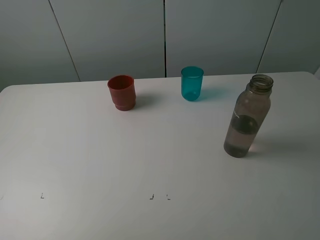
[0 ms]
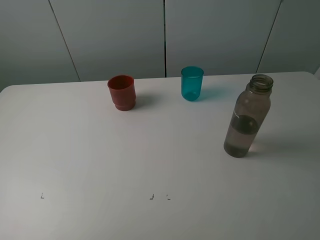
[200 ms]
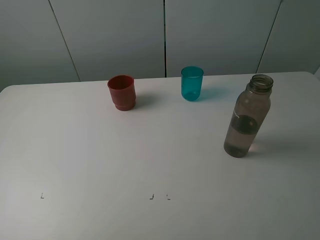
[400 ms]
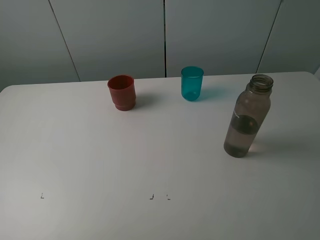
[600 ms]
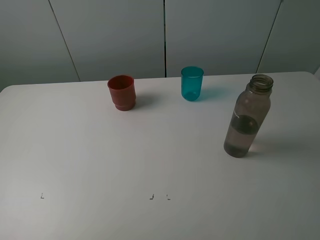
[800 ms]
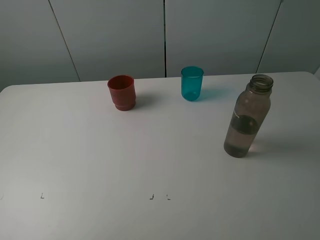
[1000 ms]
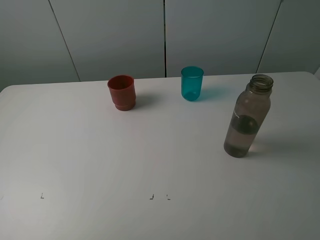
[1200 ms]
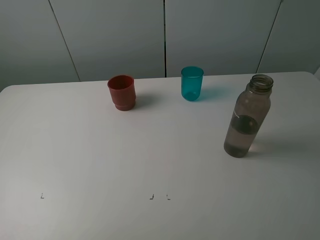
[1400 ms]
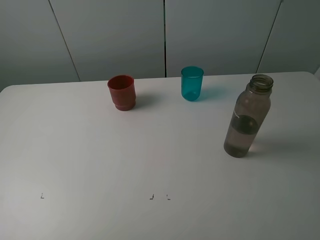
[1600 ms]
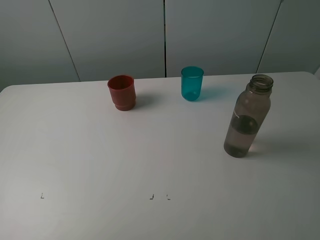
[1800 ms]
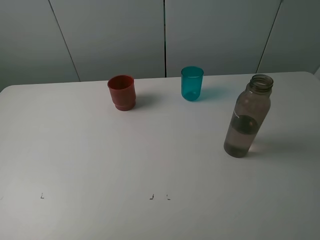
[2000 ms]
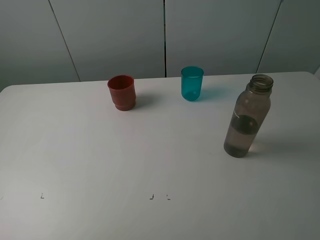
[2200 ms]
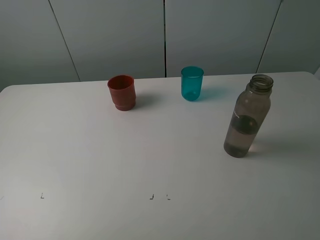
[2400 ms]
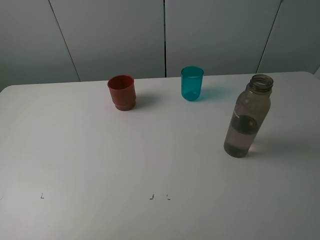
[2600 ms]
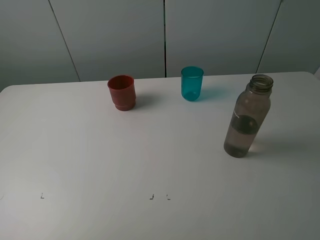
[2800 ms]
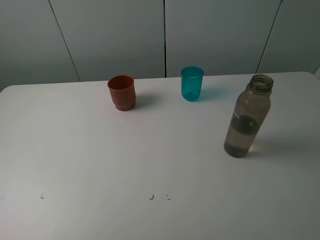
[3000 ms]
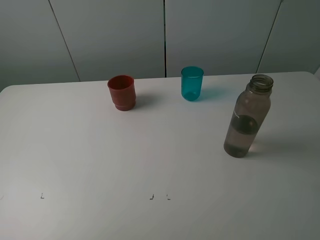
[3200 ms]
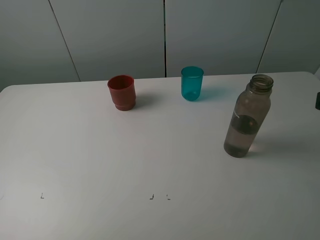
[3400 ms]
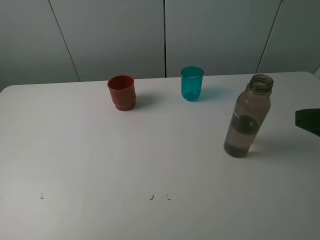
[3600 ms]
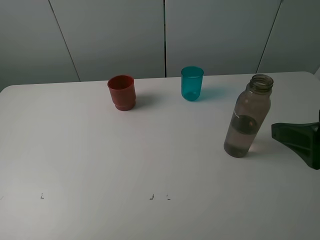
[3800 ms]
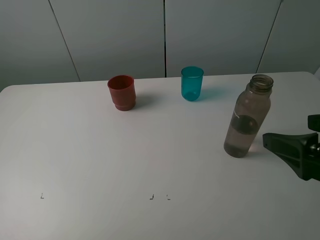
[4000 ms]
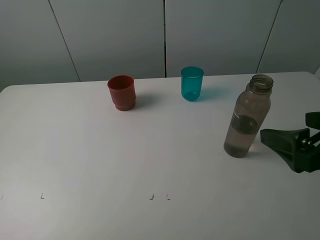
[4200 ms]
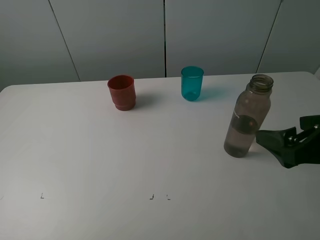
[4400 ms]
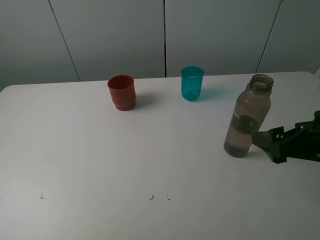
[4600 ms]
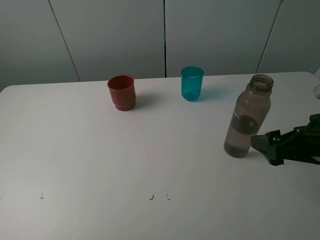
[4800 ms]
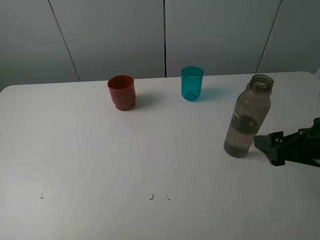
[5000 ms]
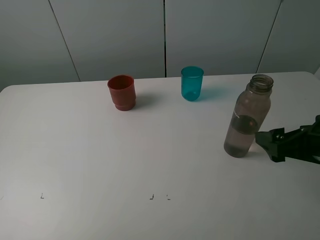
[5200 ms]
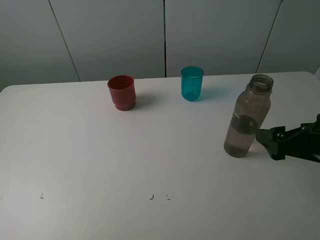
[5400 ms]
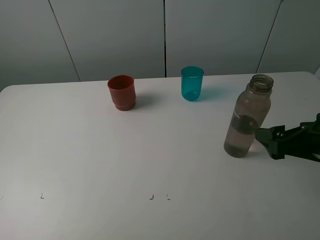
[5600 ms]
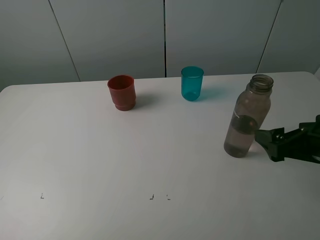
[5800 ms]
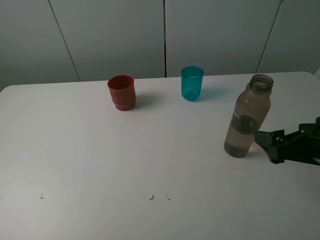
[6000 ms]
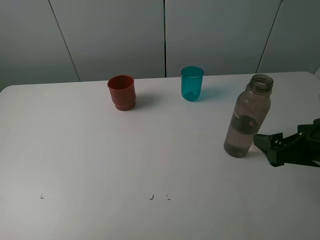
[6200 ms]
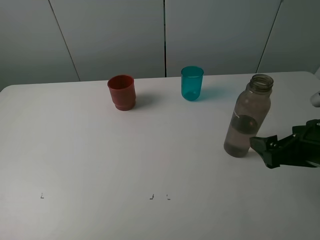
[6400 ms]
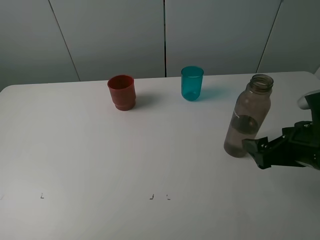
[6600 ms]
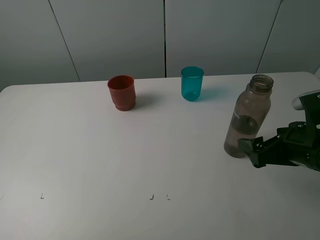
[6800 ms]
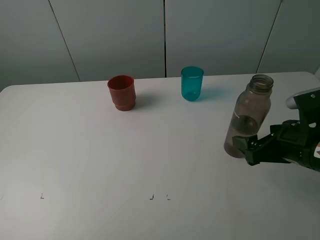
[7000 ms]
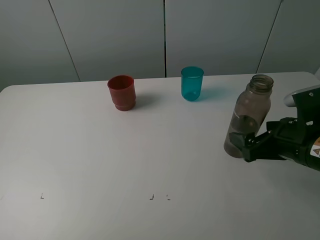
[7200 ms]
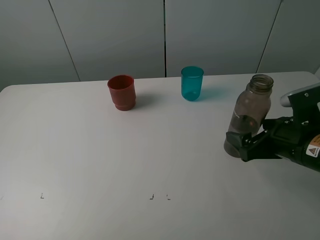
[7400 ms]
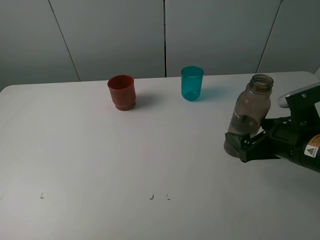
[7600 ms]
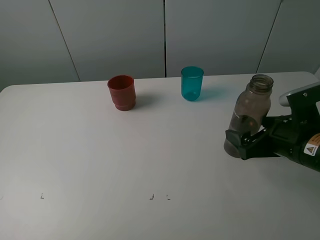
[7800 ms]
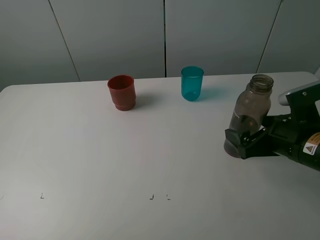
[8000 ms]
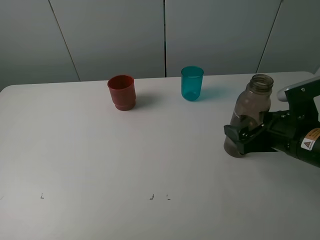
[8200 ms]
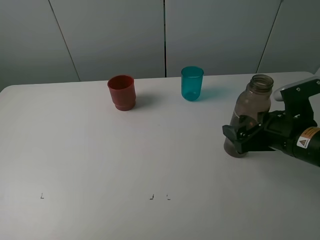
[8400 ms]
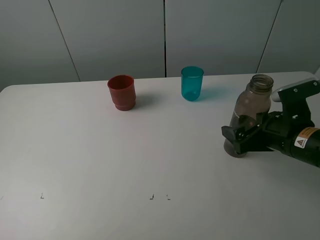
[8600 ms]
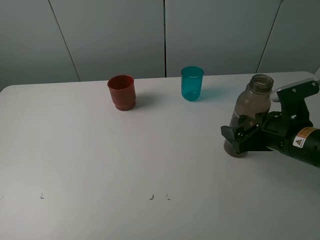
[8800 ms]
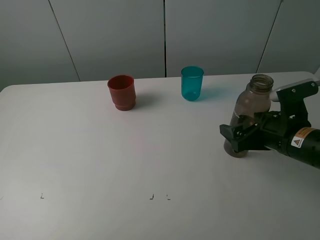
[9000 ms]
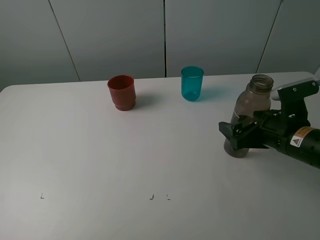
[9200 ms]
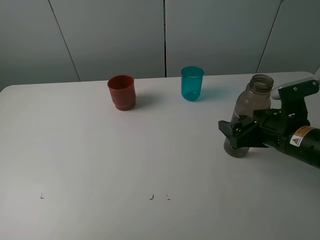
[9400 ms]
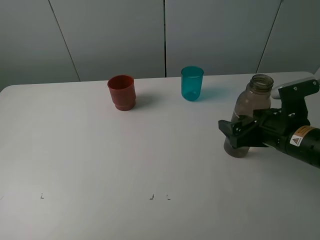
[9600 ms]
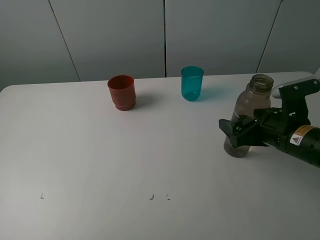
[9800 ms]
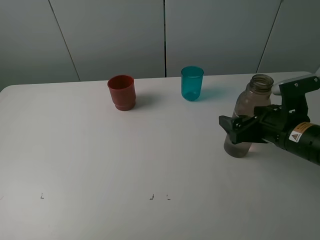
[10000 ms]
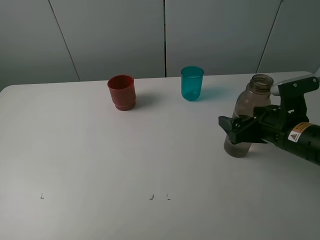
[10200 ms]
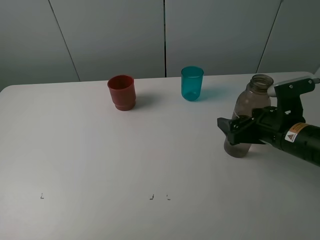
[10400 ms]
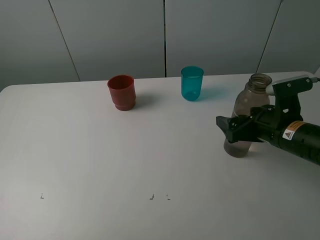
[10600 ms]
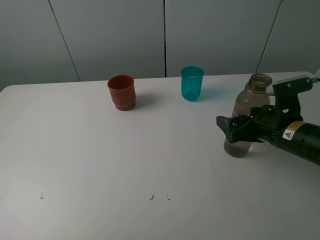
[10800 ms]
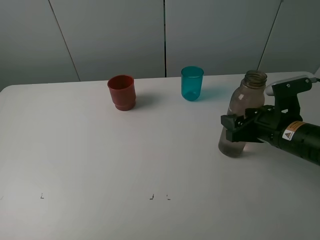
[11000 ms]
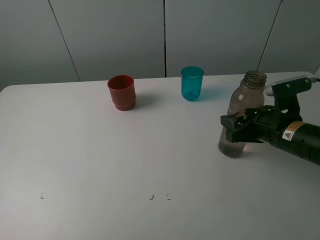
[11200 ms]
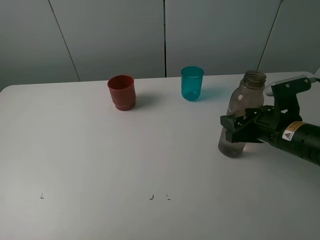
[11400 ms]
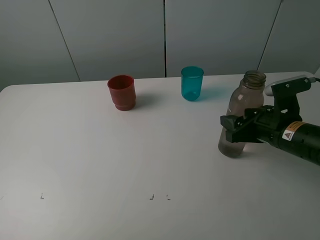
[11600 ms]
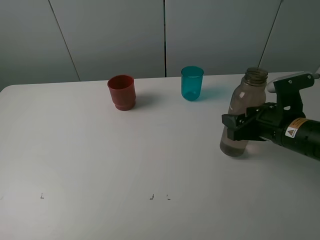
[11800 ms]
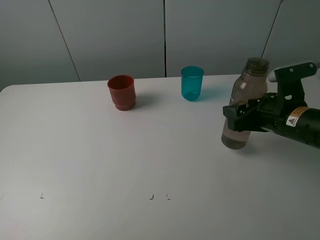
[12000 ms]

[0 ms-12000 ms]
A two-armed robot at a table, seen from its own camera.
Task of the whole recording: pick up the bottle and pour water into the cup, then pick up the cup containing water and pour it into another cup.
Step, 0 ms to 11200 ms: Grasp the brown bottle with the right gripper.
0 ms to 1600 ms: The two grippers keep their place.
3000 ms to 4400 ms: The right gripper goes about 15 cm forward and downward.
6000 ms to 7600 ms: The right gripper shifts by some 5 cm.
7600 ms to 10400 ms: The grippers make only small movements.
10400 ms to 12000 ms: The right gripper closes up.

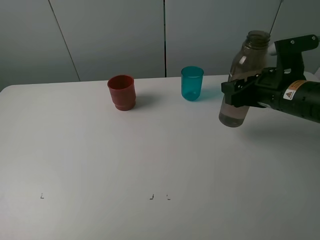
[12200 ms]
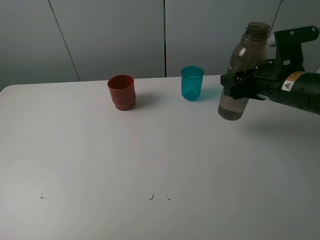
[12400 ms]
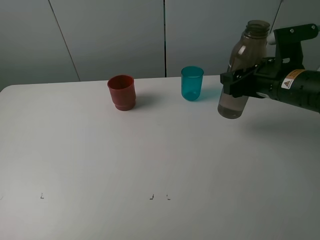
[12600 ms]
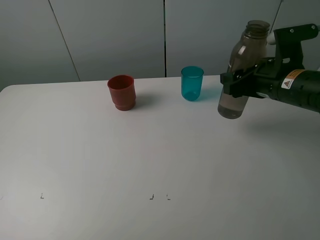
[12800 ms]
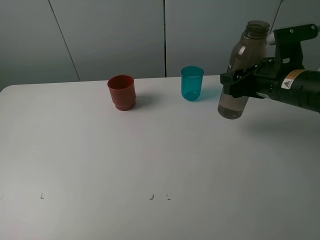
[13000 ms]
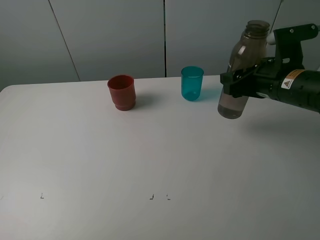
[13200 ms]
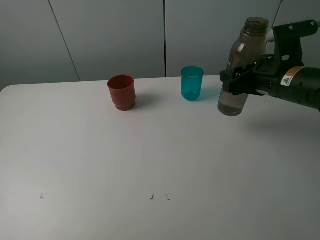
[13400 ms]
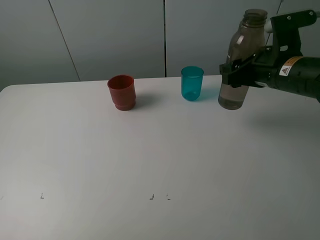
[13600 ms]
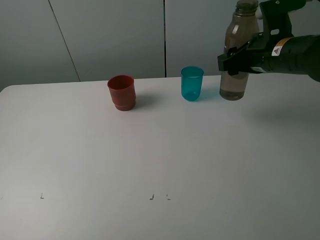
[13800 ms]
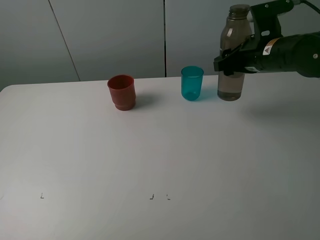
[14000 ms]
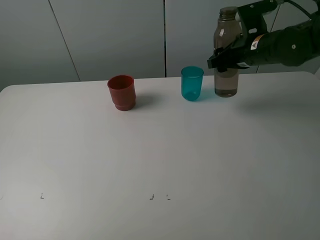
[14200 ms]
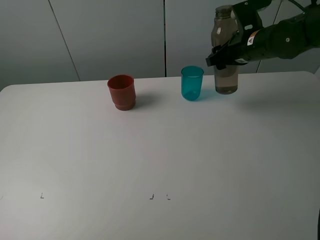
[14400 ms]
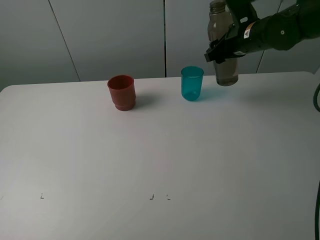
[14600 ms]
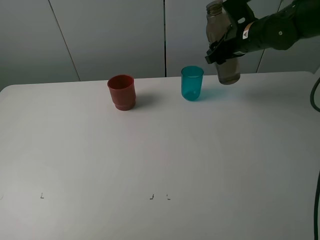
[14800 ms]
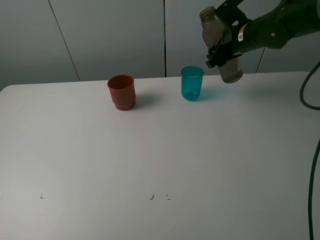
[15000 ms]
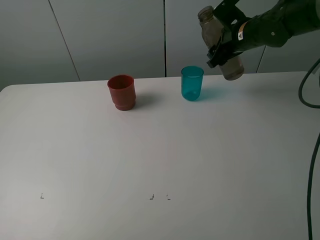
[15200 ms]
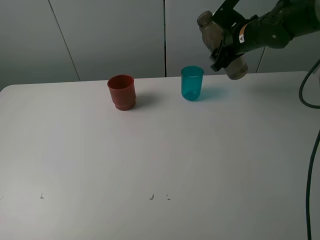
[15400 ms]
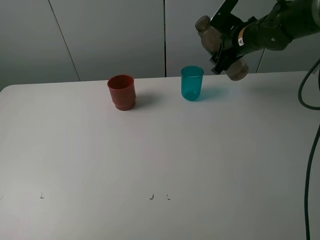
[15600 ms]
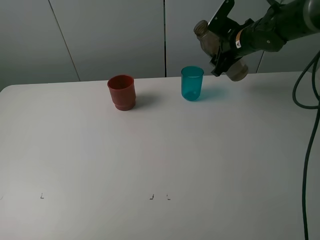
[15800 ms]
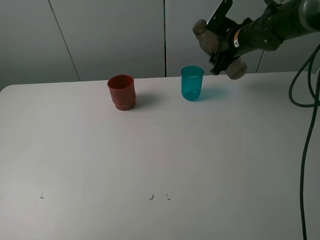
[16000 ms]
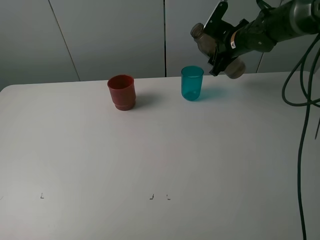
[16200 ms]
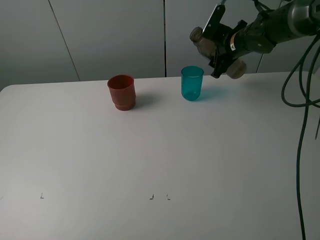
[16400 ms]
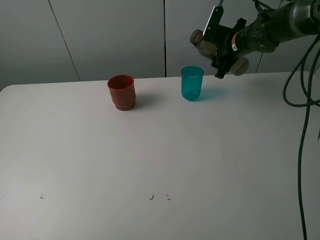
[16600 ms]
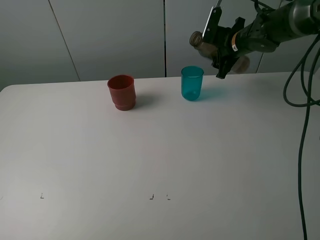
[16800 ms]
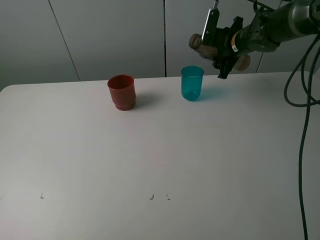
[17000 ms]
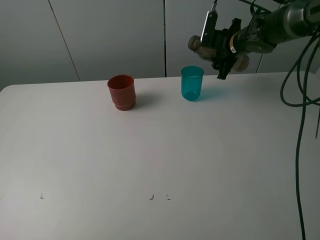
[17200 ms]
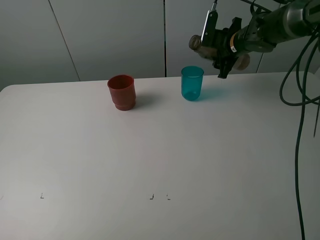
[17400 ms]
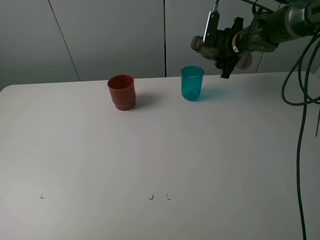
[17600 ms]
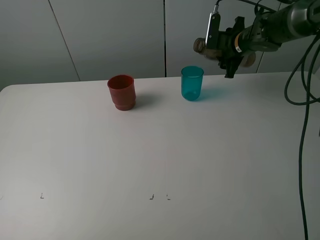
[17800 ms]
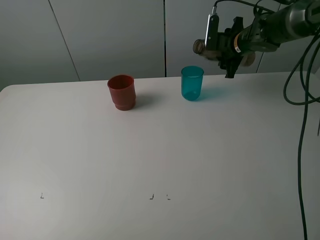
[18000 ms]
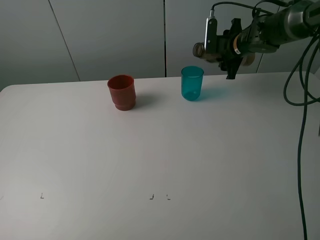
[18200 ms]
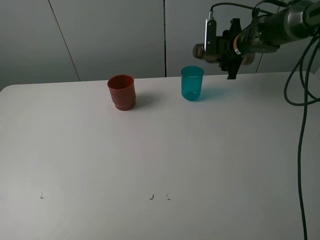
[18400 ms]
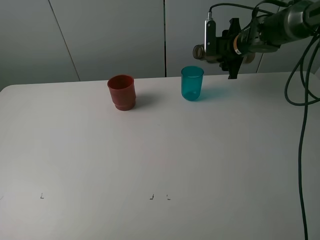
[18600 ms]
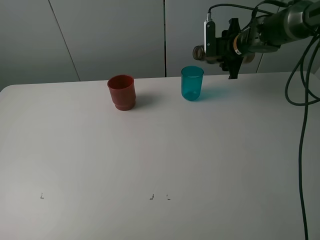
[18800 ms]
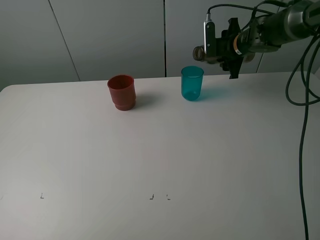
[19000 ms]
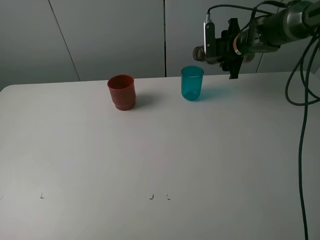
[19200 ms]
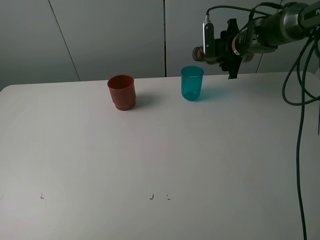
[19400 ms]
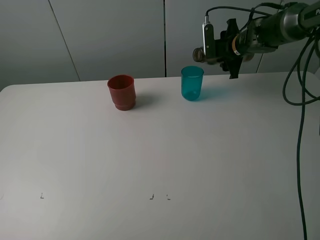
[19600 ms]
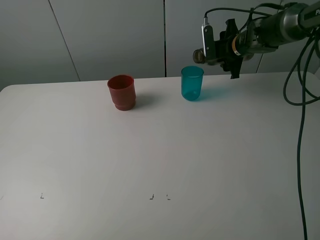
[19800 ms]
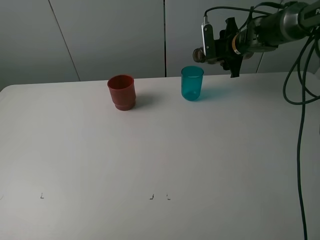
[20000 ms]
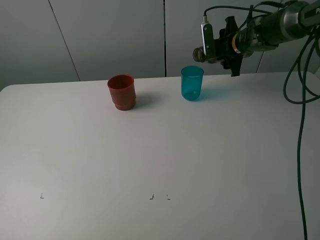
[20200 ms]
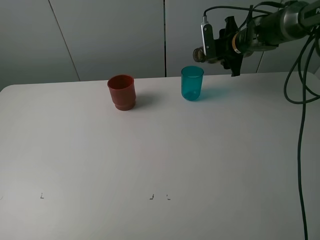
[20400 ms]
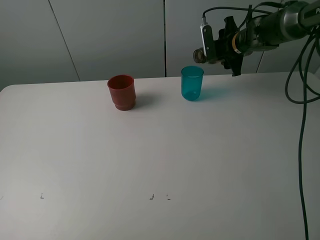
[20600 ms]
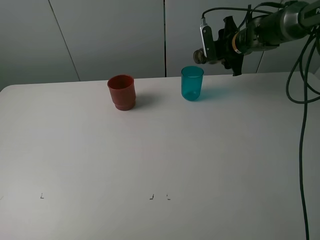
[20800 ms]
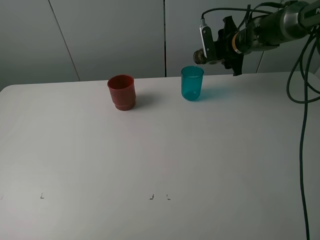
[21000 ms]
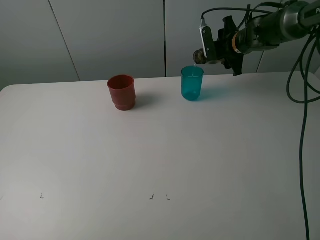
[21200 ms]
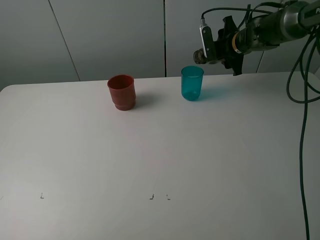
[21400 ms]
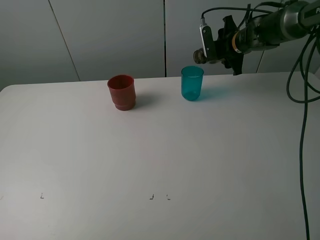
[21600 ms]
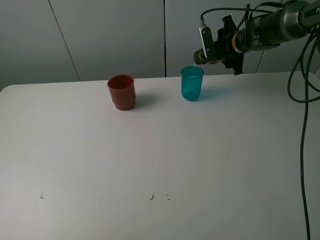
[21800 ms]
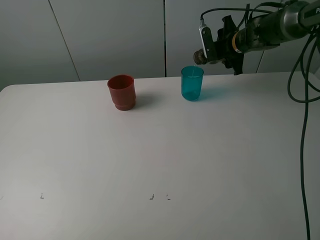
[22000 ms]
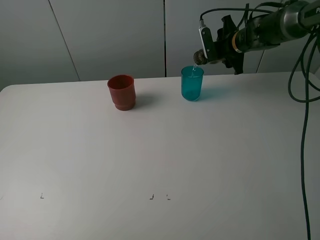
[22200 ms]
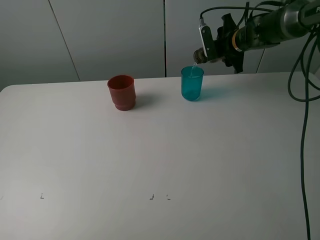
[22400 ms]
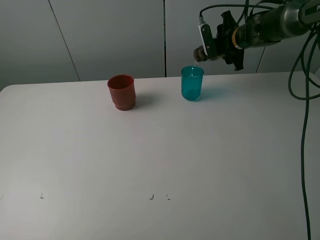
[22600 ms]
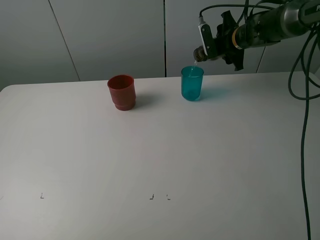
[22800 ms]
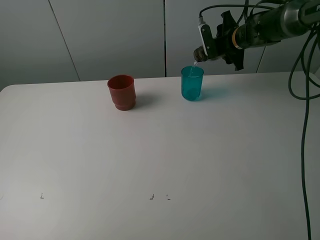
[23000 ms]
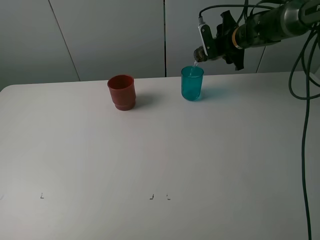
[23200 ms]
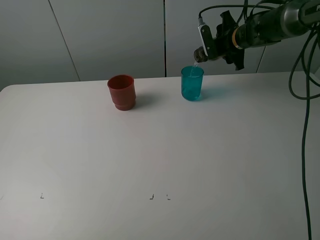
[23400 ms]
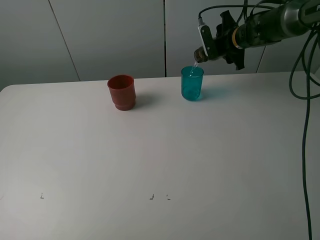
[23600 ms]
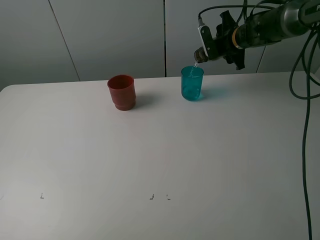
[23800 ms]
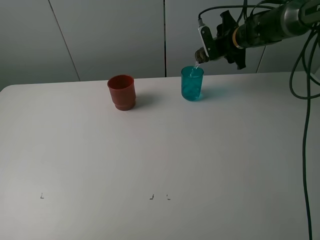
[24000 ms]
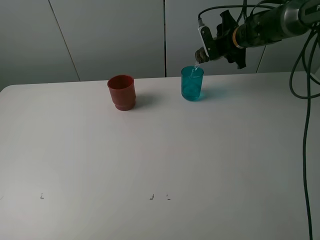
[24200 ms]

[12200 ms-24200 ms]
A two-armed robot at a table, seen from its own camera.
Task of the whole recording: pick up the bottle and pour water into the cup, then pick up the cup containing water and pour it into another cup.
12200 ms to 13800 ms: The right gripper moves forward, approximately 5 cm.
13800 ms to 15200 ms: The right gripper is displaced forward by some 10 cm.
16600 ms to 18200 ms: The grippers make only small movements.
18200 ms to 21200 ms: The grippers stay close to where they were, moving slightly.
21200 ms to 22600 ms: Neither gripper changes place.
22600 ms to 24200 ms: Neither gripper changes place.
